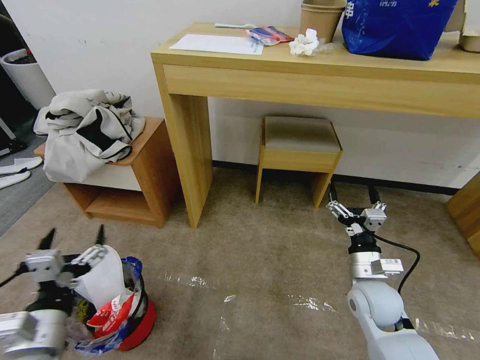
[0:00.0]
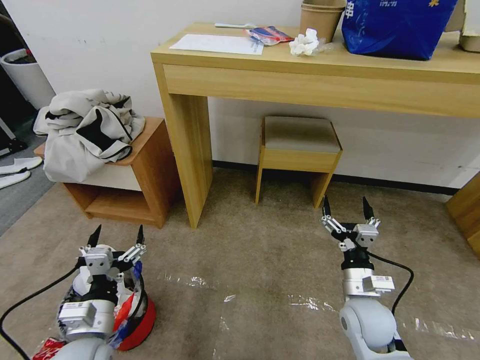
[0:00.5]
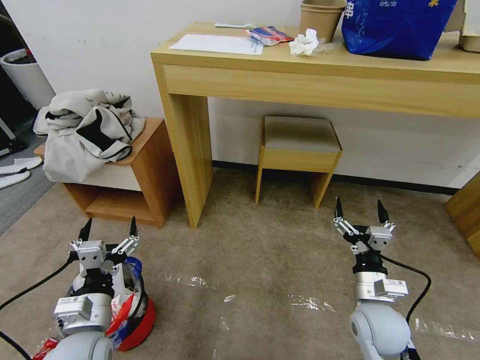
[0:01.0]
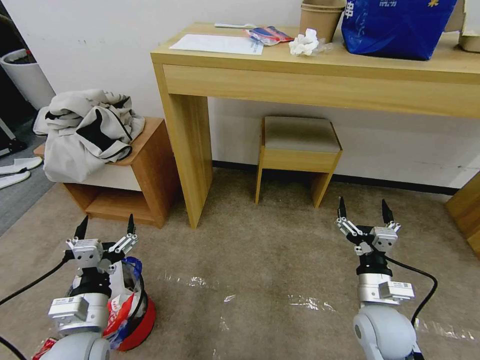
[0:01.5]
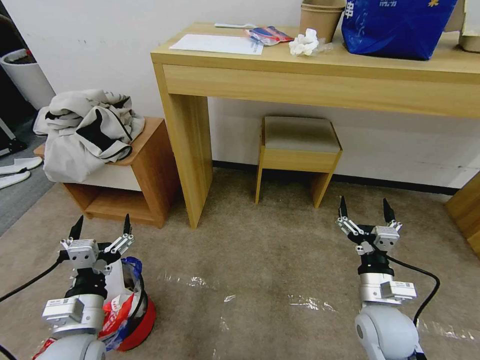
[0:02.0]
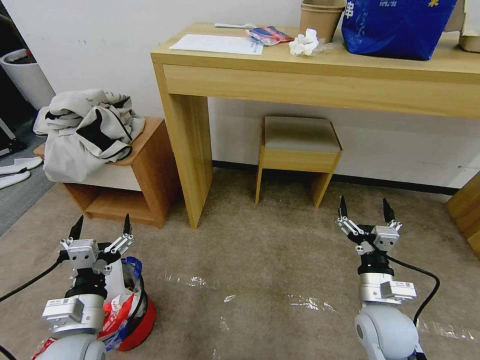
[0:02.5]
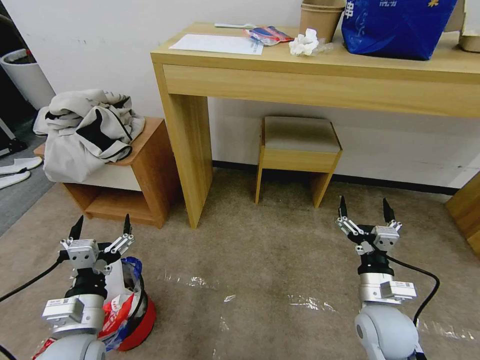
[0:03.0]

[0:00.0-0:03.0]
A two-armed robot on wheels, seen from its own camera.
Task of the whole recording: Pick up the trash bin and place the garbage on the floor into it.
0:00.0 to 0:01.5: The left gripper ends up some 5 cm from where it was. The right gripper moves backward, roughly 5 cm.
0:01.5 to 0:03.0: Neither gripper changes place.
